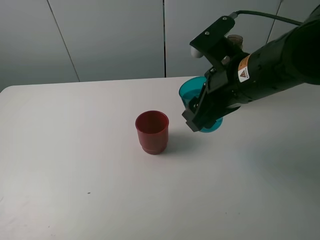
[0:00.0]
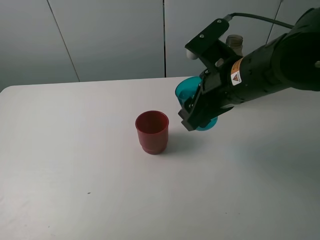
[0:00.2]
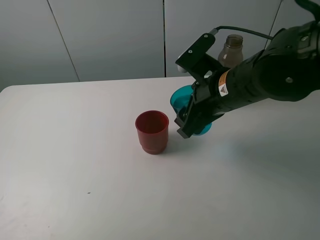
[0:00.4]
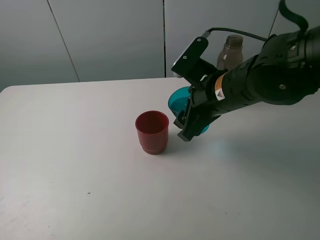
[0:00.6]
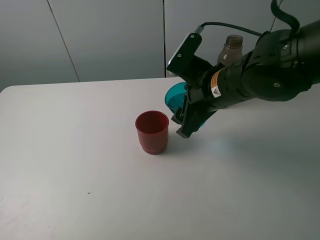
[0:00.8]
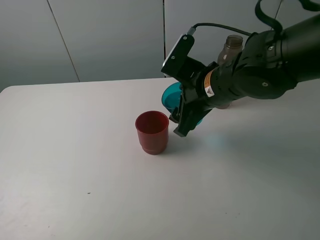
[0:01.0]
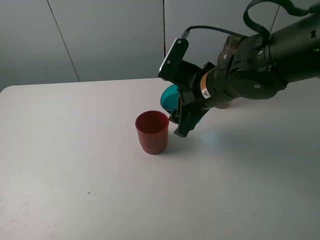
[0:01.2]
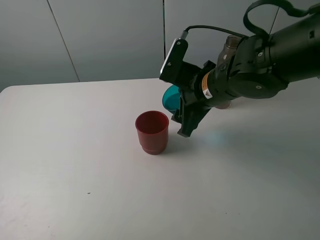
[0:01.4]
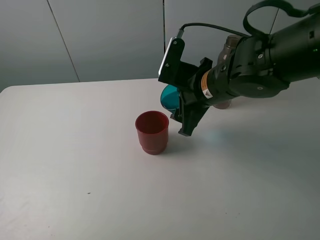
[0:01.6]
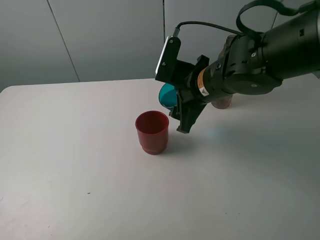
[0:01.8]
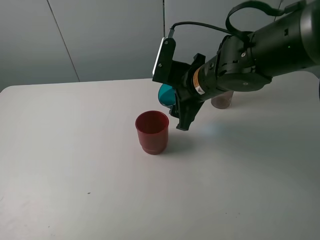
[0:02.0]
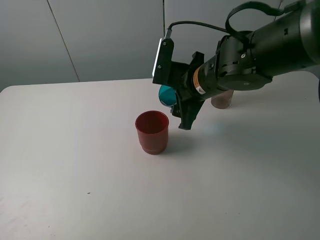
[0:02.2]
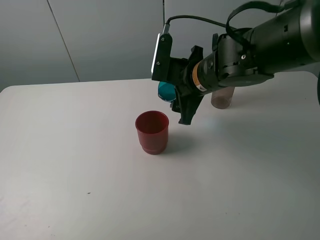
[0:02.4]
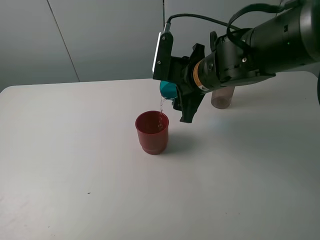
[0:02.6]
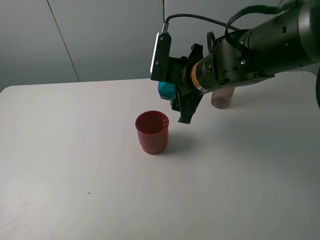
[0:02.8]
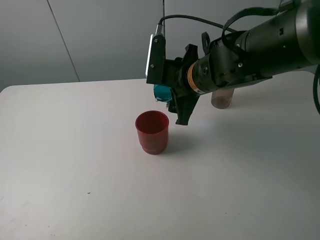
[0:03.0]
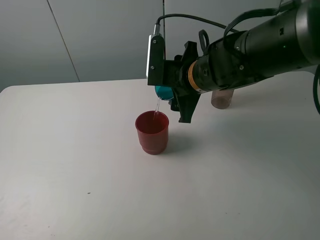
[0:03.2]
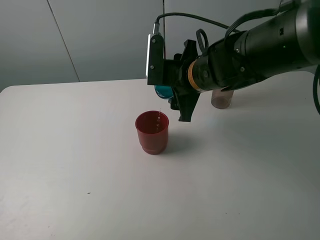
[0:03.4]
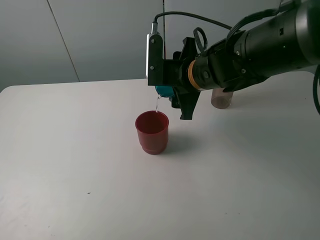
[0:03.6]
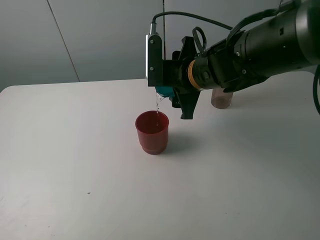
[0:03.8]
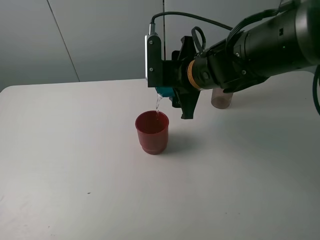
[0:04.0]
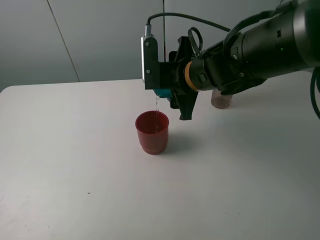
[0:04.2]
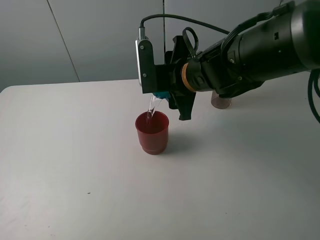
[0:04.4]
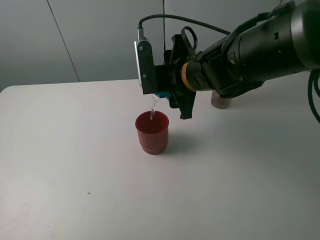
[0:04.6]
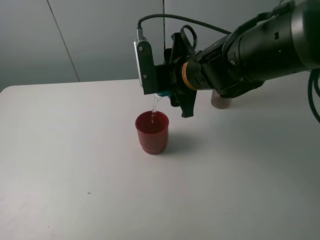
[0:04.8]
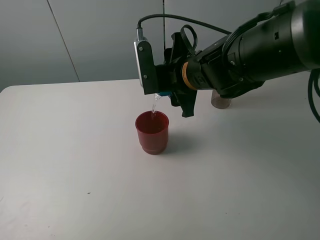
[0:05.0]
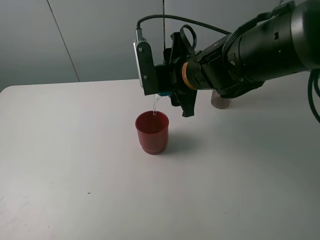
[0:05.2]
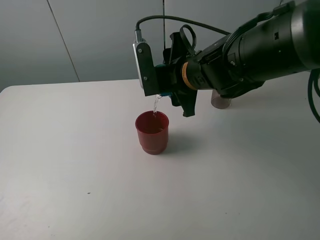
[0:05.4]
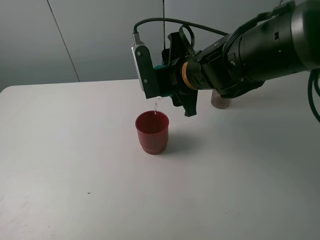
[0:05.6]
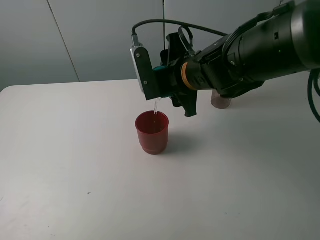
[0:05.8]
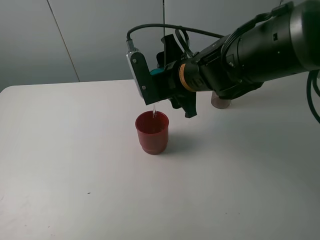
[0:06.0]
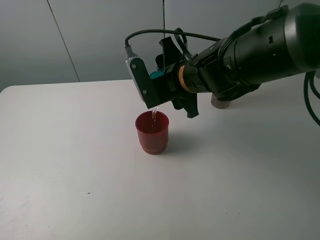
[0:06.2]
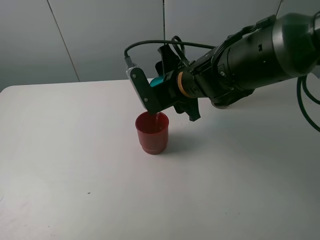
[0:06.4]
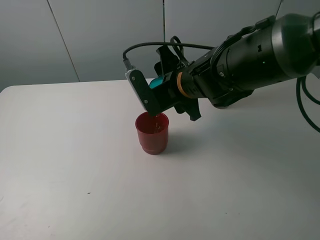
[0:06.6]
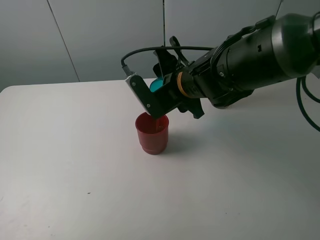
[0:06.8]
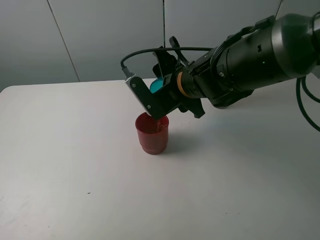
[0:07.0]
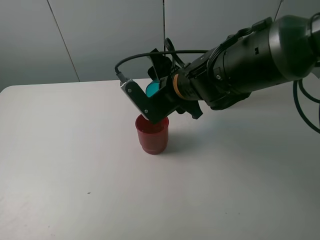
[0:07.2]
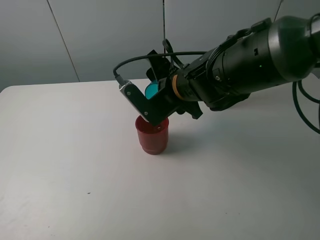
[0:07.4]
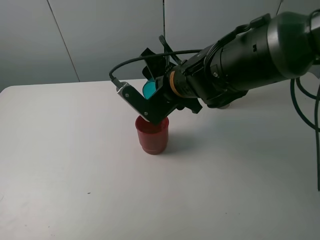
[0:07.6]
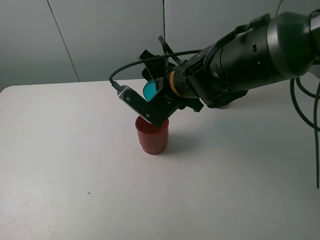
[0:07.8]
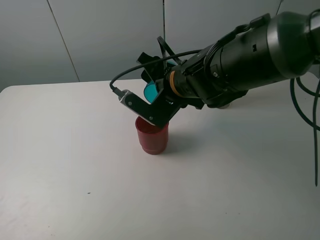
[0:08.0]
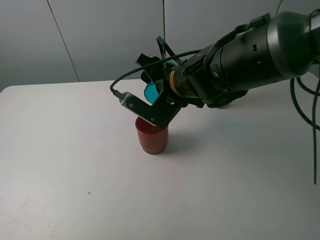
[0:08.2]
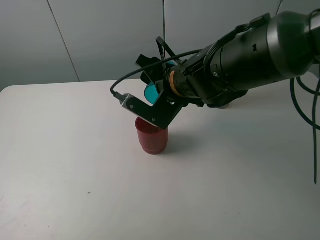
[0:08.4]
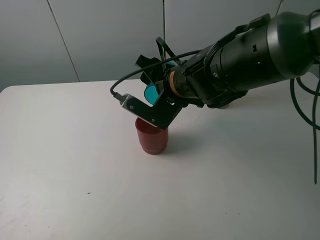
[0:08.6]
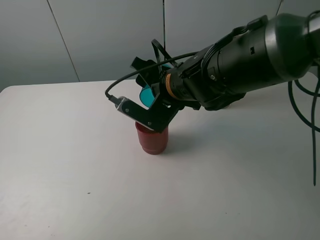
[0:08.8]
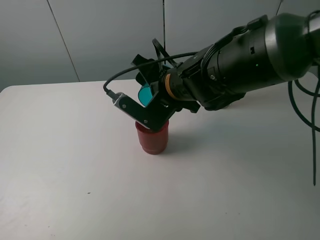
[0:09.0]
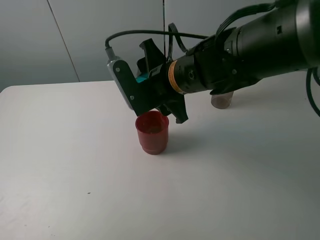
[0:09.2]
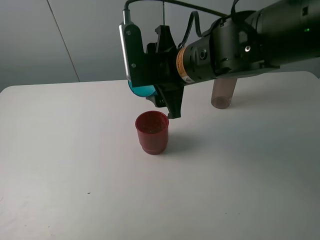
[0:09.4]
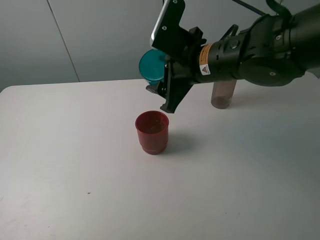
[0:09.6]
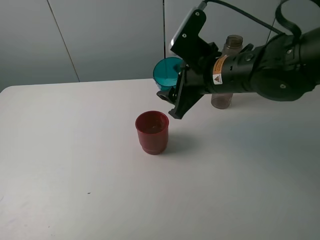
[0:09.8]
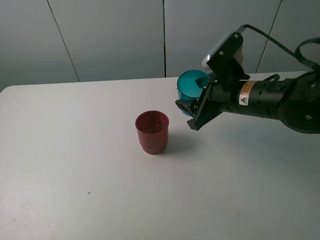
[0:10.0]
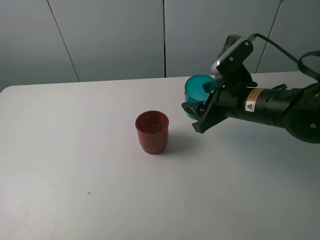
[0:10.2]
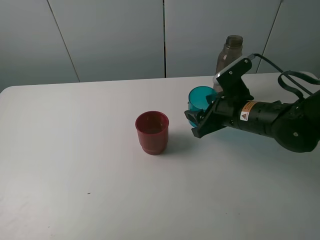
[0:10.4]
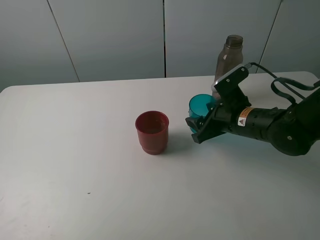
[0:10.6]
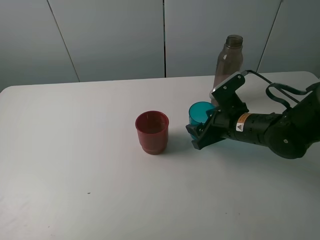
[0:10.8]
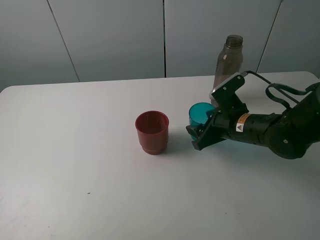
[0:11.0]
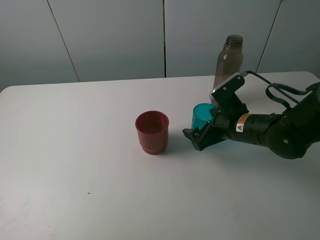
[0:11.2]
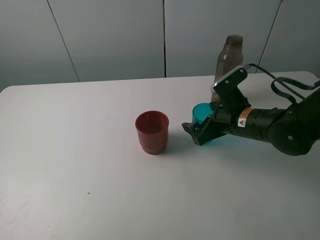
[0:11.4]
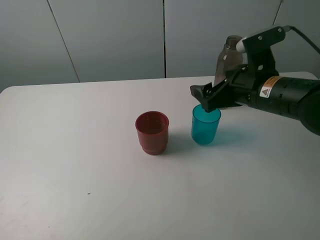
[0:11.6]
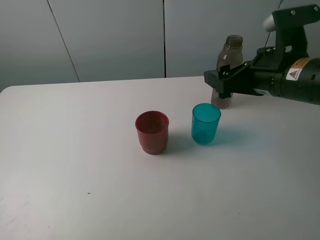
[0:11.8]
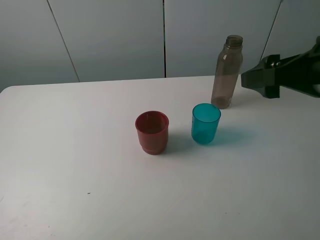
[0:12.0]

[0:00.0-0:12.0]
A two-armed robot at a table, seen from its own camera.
Task of the whole recording: pick up the bottle and pour water into the cup, then pick up the cup containing water and pour it into another cup.
Step, 0:00.0 to 0:09.2: Pour water from blue cup to red cup with the right gripper.
Step, 0:09.4 to 0:11.2: Place the blue cup with the right gripper.
0:00.0 to 0:01.6: The right gripper is displaced forward by about 5 cm.
0:01.6 to 0:03.0: There are only small adjustments of the grippers.
0:03.0 to 0:04.4: The grippers move only a little.
0:04.4 to 0:06.0: There are only small adjustments of the grippers.
0:07.6 to 0:09.0: The grippers stay close to where they were, moving slightly.
0:09.0 to 0:10.4: The right gripper is displaced to the right and downward by some 15 cm.
0:10.4 to 0:12.0: The right gripper goes about 20 cm upward, backward and to the right, and opens up.

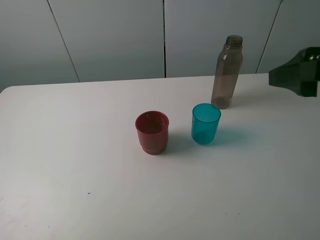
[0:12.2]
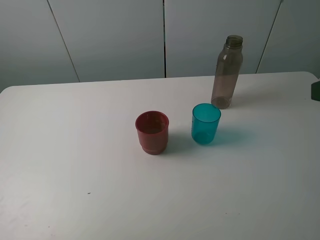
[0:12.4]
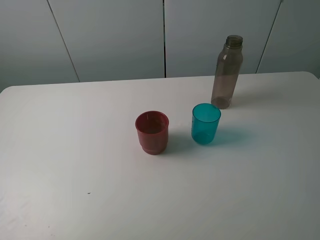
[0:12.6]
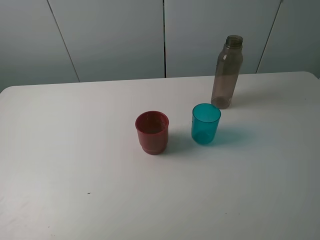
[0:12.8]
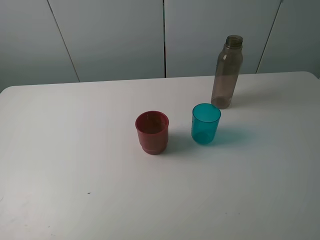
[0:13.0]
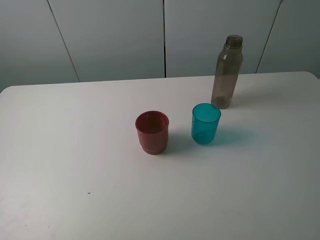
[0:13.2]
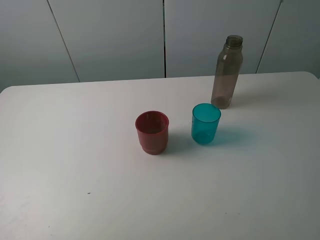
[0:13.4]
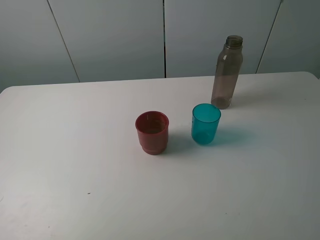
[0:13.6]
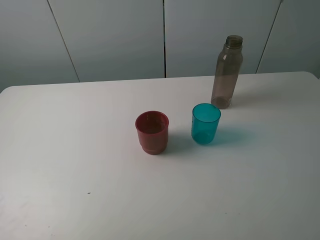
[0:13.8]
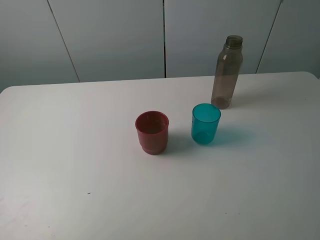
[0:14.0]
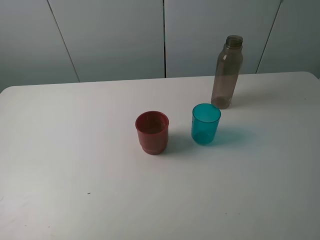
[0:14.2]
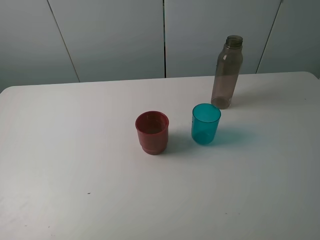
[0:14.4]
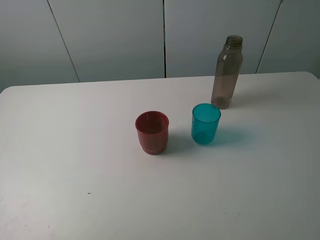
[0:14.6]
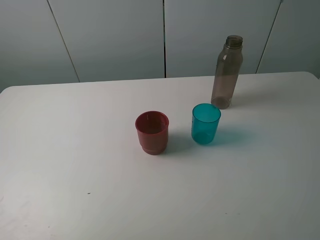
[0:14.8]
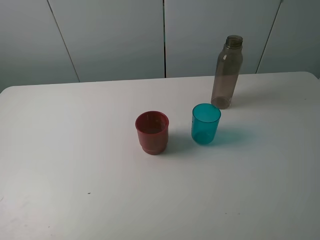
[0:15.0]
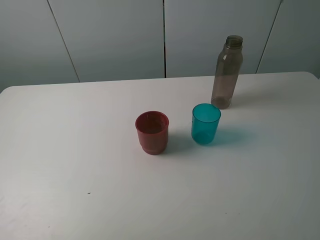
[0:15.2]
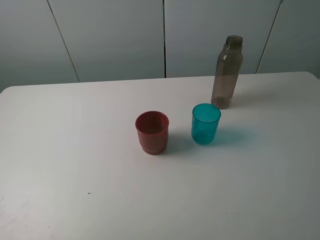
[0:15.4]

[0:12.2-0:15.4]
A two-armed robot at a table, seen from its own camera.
Task of the whole recording: pick up the bottle and pour water into the cup, then pick up the cup containing water and pour it into another cup.
0:12.2 to 0:13.8: The right gripper shifts roughly 15 cm backward.
